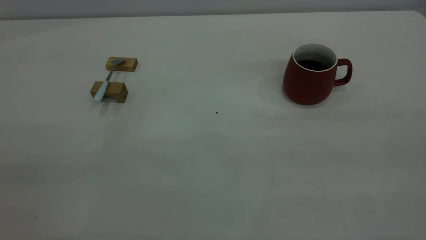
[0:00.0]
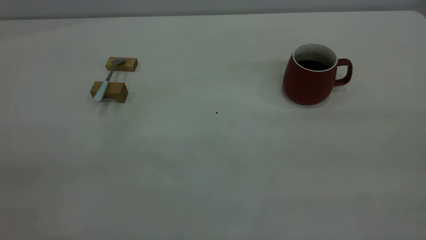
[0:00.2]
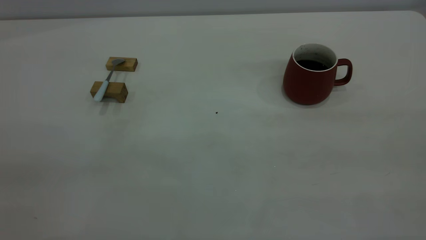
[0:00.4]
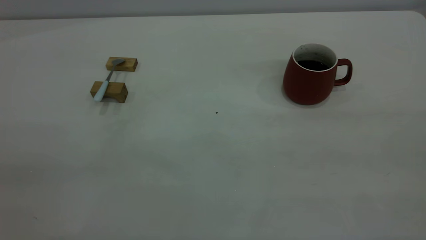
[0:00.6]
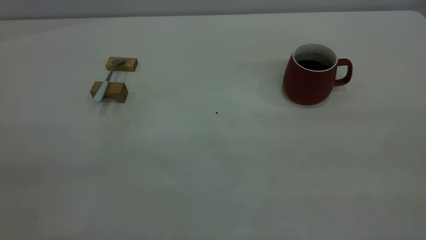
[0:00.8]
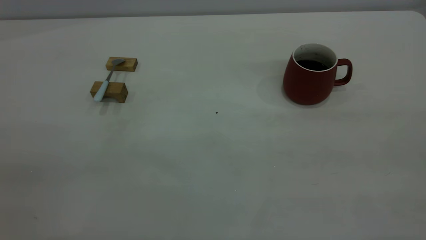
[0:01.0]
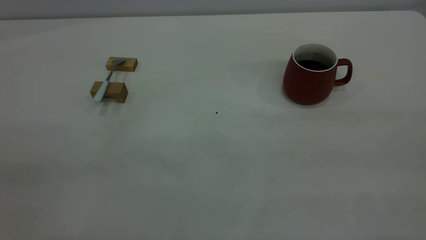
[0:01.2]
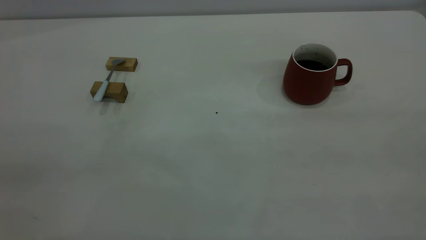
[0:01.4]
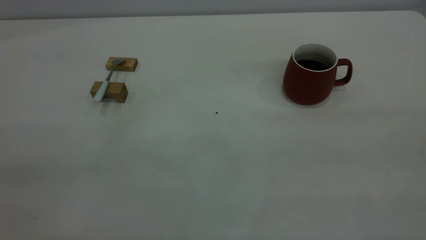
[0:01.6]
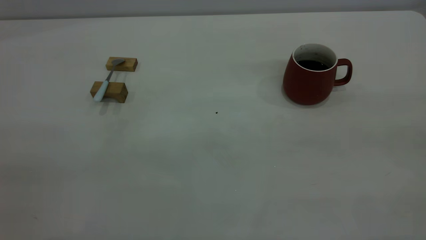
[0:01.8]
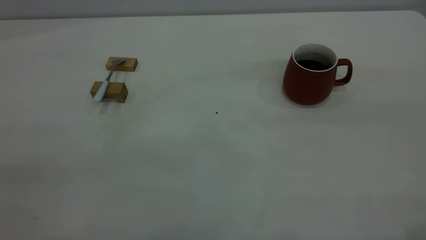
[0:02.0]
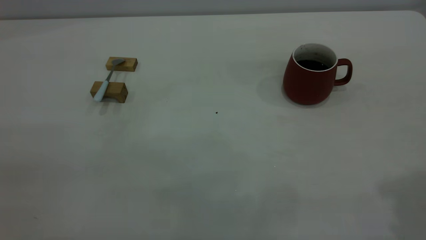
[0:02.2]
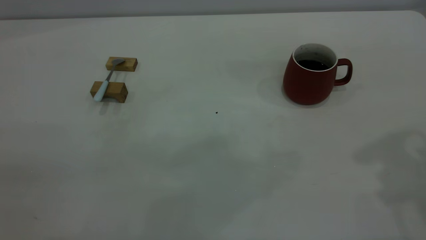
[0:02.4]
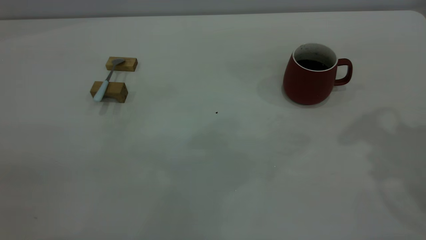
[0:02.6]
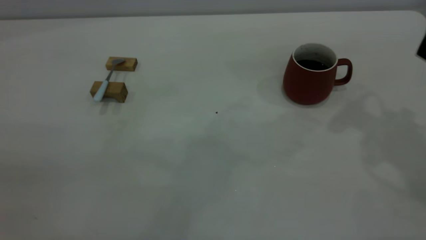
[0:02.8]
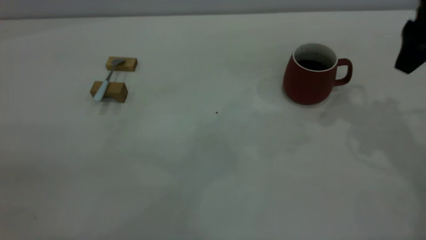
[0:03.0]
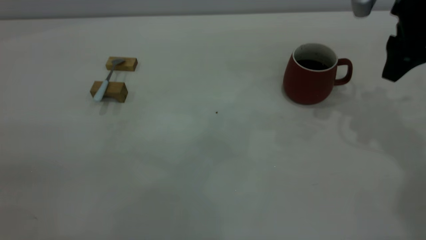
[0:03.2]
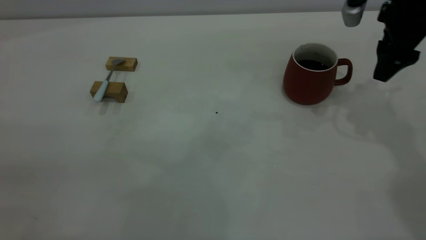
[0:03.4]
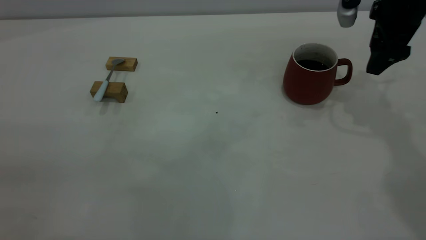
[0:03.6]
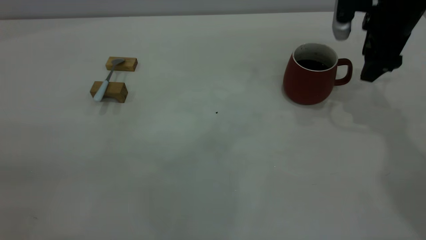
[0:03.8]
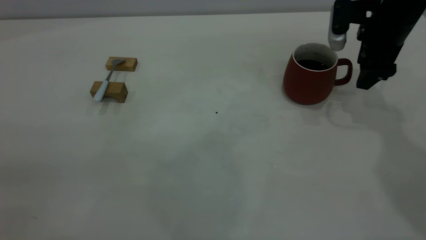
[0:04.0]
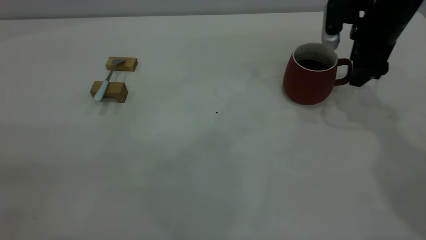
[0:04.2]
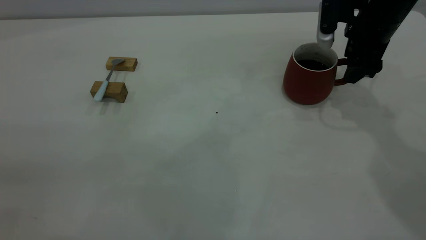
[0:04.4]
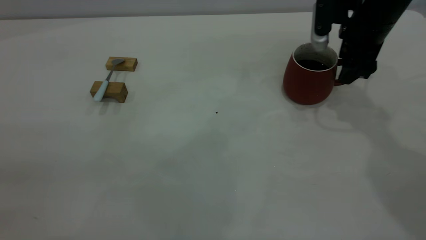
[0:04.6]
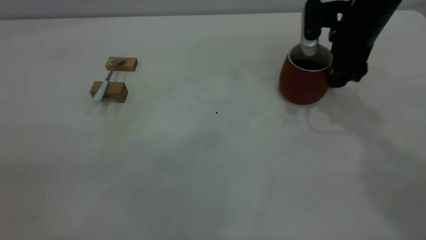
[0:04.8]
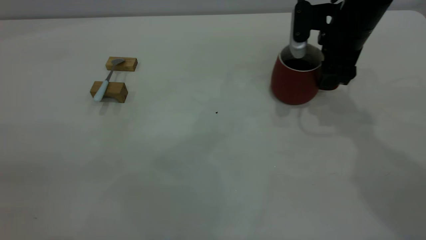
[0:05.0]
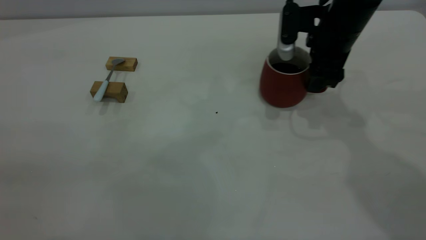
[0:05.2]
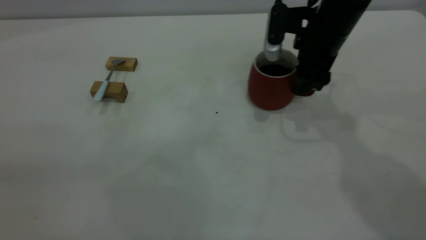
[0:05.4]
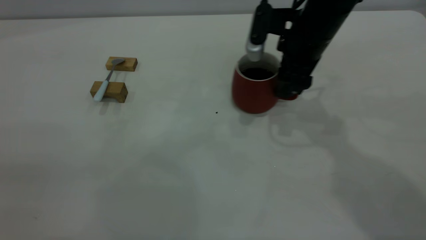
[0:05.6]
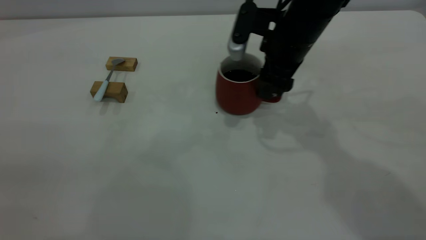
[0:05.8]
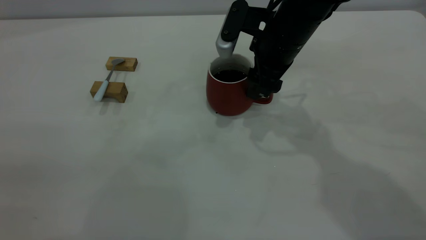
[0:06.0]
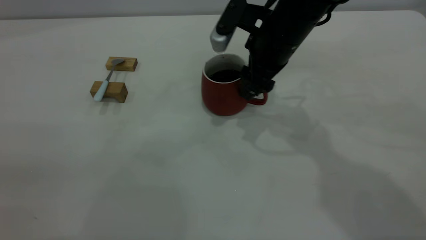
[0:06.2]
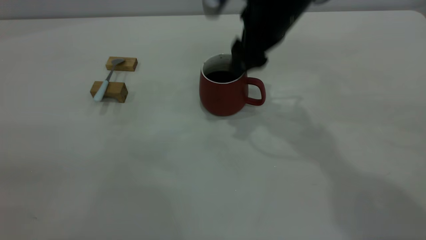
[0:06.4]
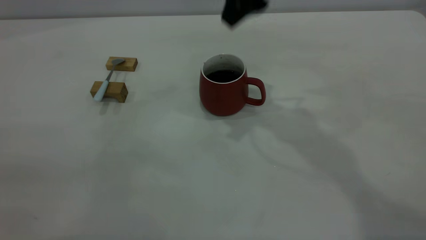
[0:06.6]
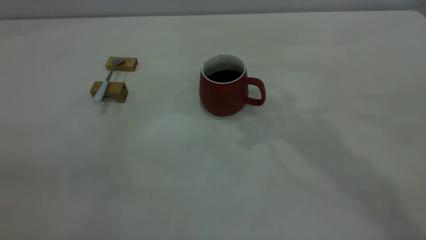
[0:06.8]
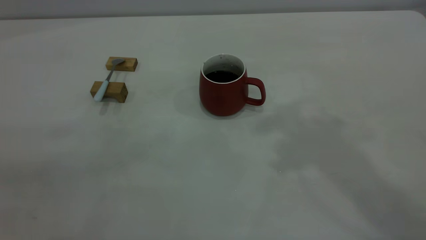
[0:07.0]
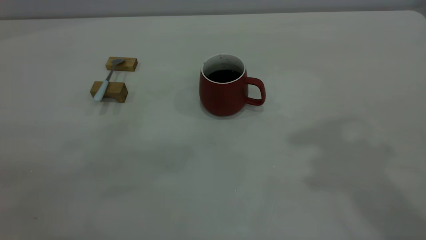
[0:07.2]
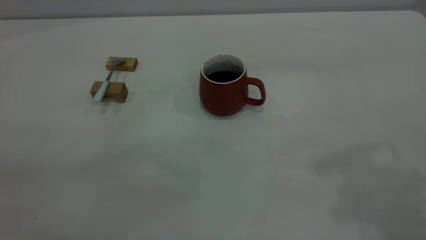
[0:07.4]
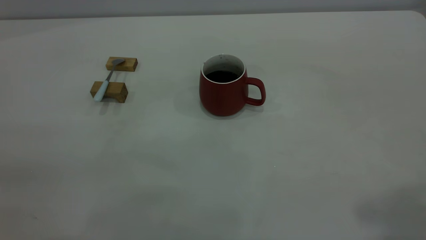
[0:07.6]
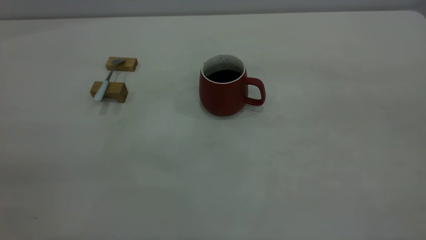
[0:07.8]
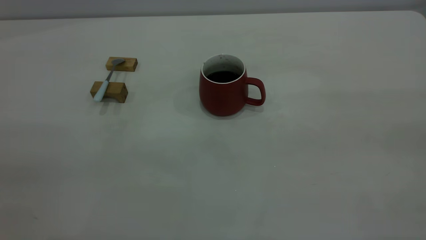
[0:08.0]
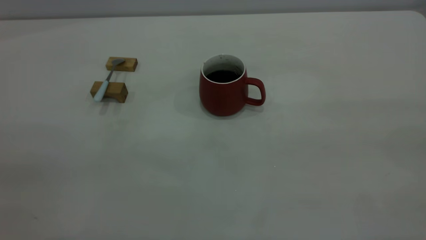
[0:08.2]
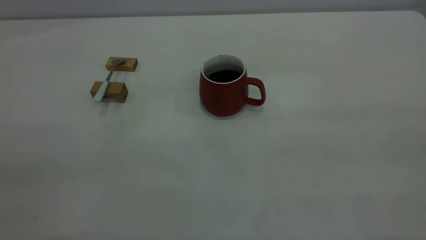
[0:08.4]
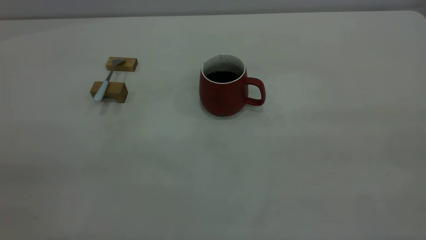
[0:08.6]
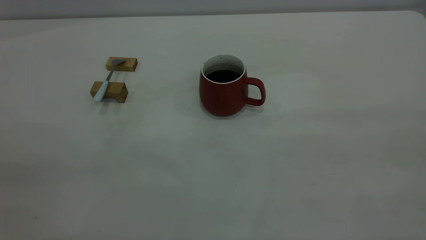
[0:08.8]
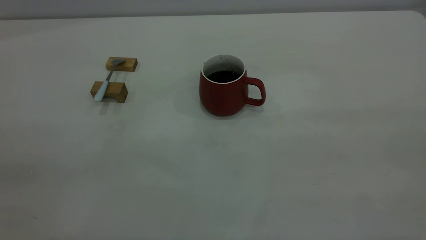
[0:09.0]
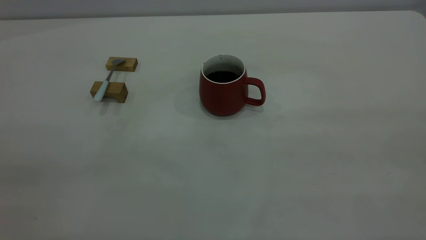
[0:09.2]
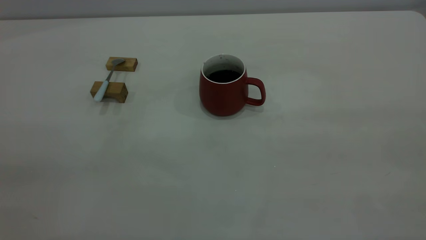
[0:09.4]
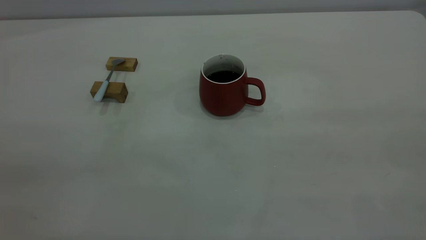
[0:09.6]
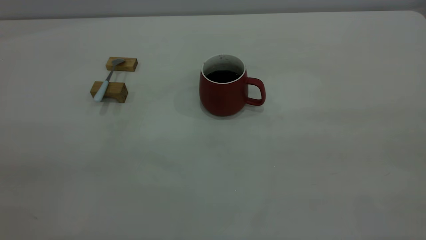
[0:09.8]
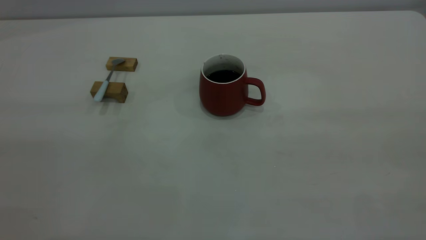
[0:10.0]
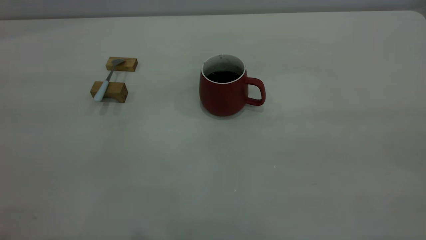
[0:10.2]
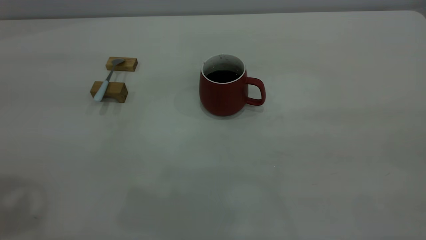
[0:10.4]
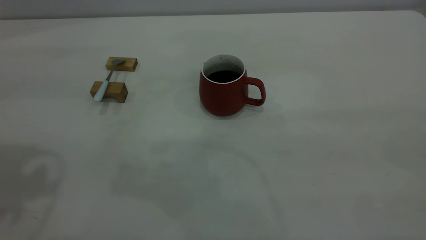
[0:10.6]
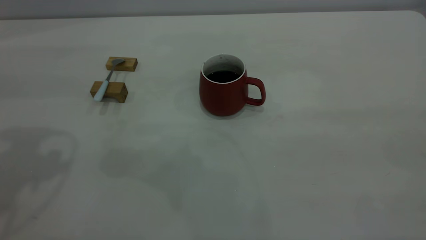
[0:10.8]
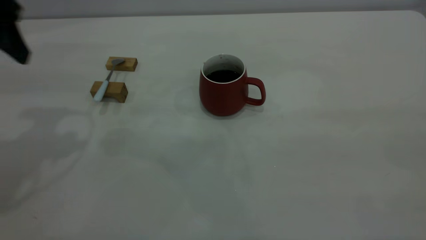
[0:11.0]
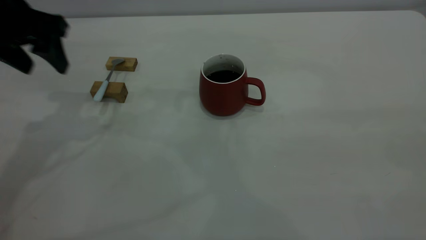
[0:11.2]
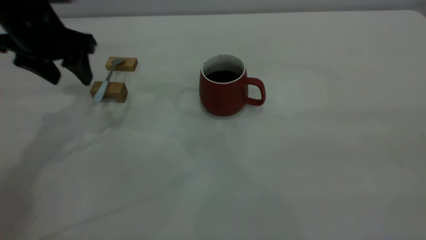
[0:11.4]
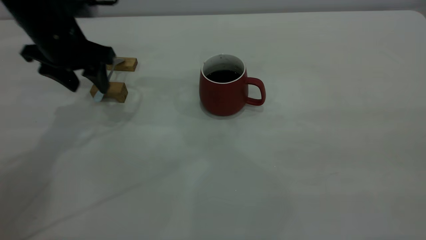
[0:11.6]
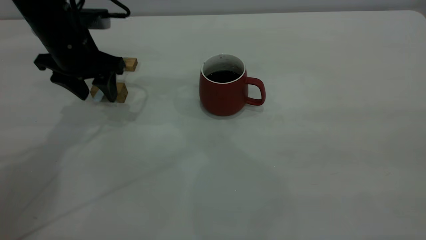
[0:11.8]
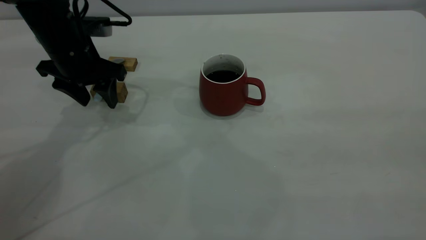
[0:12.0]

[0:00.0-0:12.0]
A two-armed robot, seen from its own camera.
Step, 0.0 to 6.4 s: Move the cup with coffee to the center of view.
0.0 to 1.6 s: Both grippers stay about where they are.
1.6 to 3.0 s: The right gripper shifts about 35 cm forward, and opens up.
3.0 to 4.4 s: The right gripper goes roughly 10 cm downward and forward.
4.4 to 6.0 s: The right gripper moves to the left, about 15 cm.
6.0 to 7.6 s: The right gripper heads upward, backward and to the right, covering approximately 40 cm.
10.4 to 12.0 s: The left gripper heads downward and forward, covering about 35 cm.

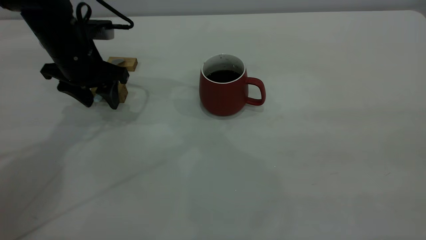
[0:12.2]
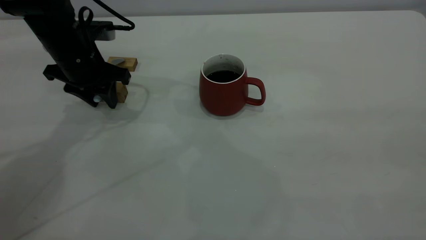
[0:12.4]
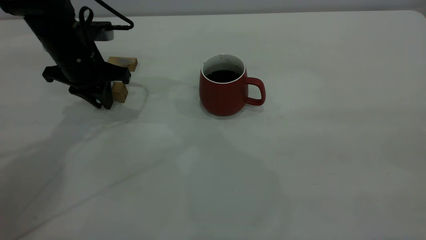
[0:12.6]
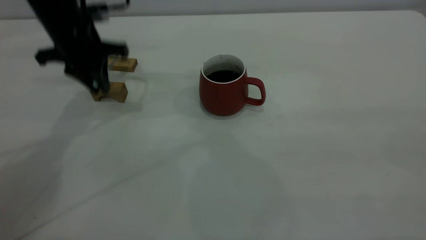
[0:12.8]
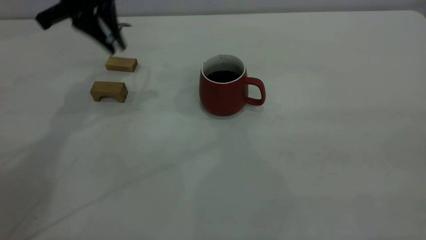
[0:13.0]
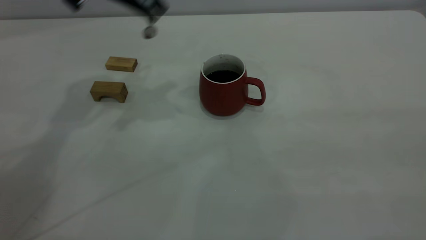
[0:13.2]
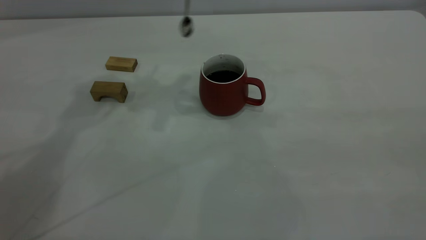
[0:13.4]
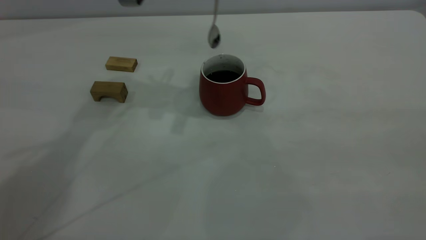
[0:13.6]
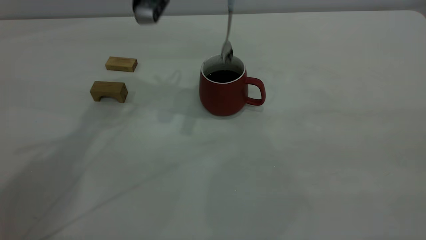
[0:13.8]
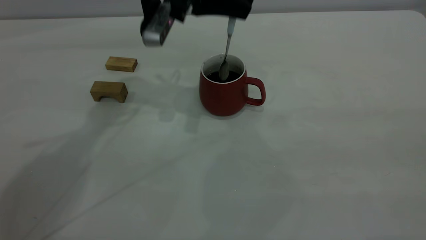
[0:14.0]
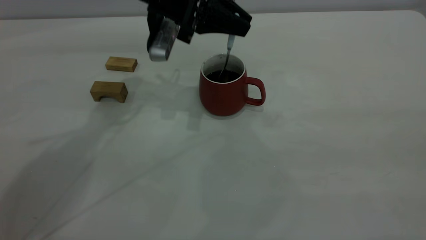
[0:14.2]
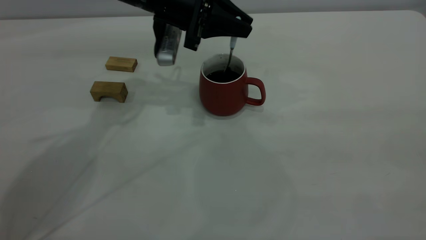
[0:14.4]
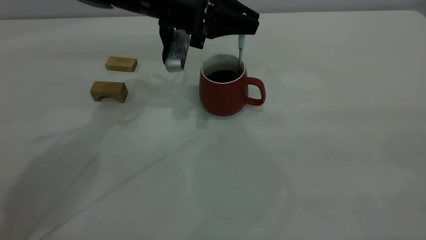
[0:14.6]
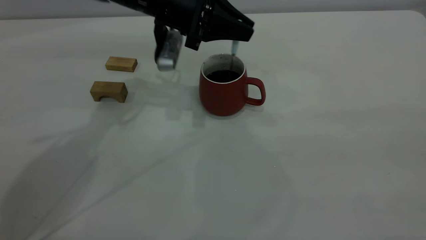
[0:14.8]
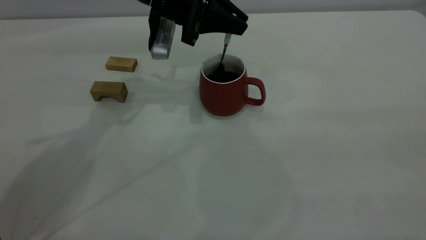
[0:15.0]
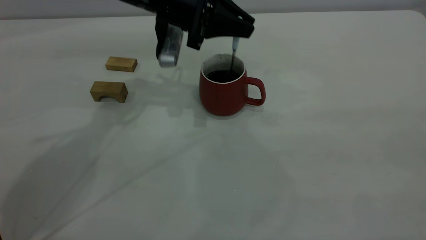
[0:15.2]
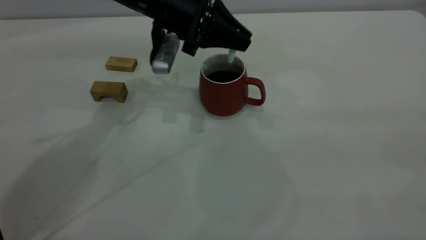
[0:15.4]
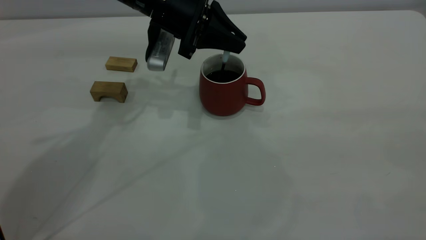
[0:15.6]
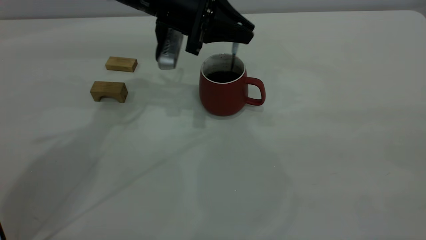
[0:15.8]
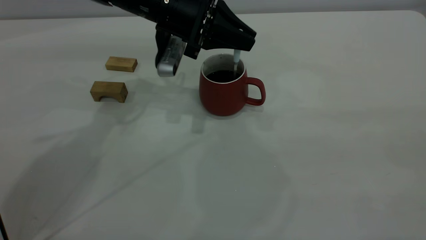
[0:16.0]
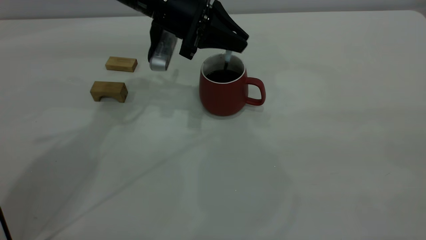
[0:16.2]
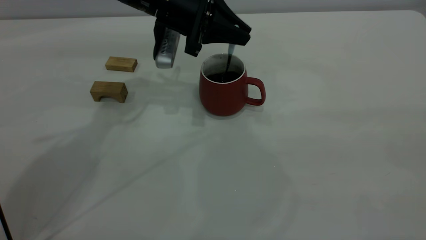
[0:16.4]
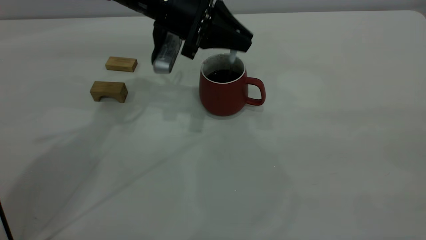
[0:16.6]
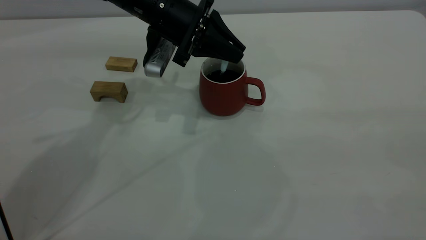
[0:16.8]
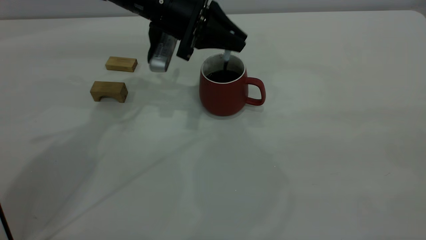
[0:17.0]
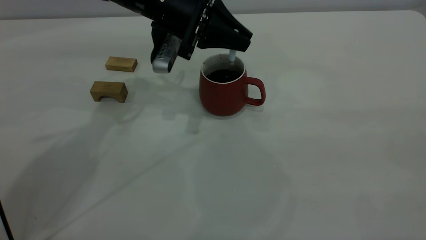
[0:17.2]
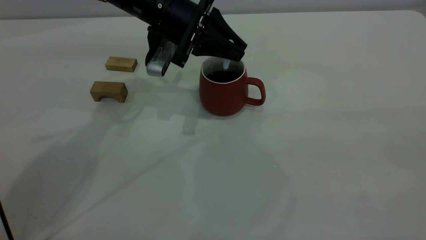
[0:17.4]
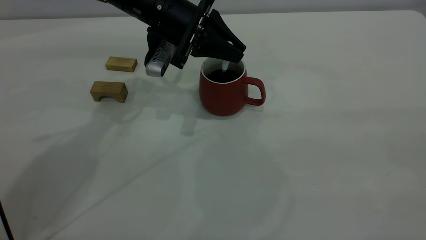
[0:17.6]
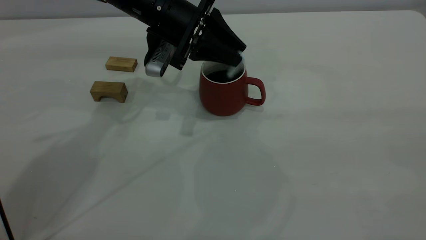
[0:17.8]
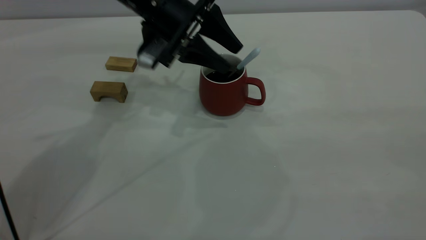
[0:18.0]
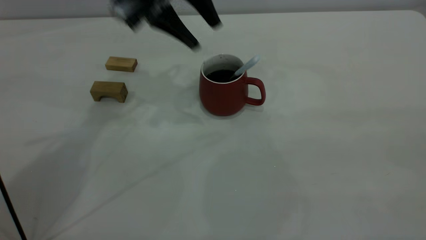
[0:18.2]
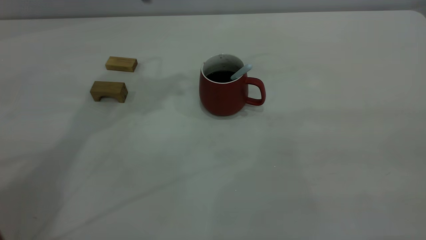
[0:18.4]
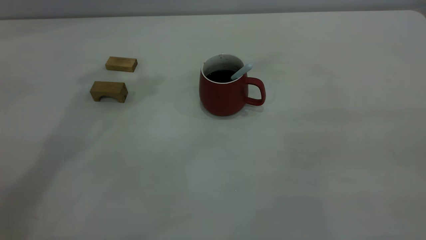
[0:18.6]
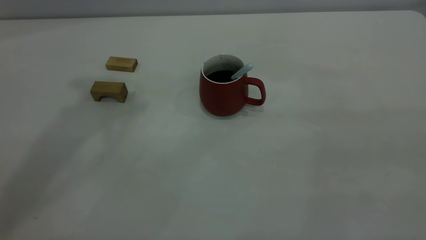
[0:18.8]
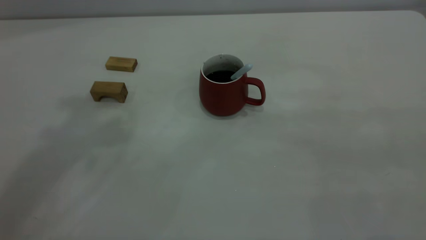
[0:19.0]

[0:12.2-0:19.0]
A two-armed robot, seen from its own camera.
Step, 13.0 to 18.0 s: Stir the coffee in the cup.
12.2 to 13.6 s: The left gripper is displaced upward and to the right by some 20 cm, and closes up.
13.6 to 15.0 s: The left gripper heads downward, covering about 10 cm.
15.0 to 17.6 s: There are only small adjustments of the grippers.
17.6 to 19.0 s: The left gripper goes some 40 cm upward and backward, and opens up.
